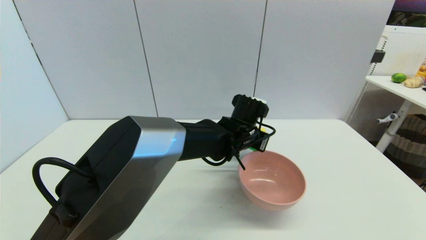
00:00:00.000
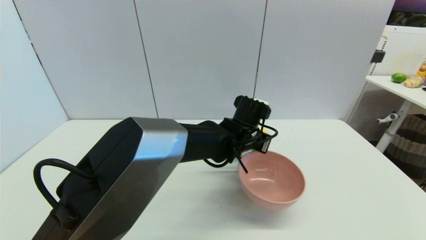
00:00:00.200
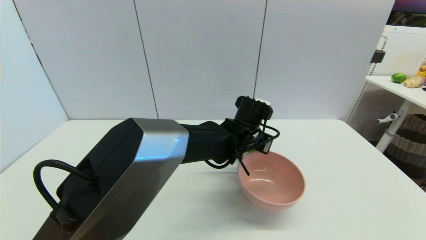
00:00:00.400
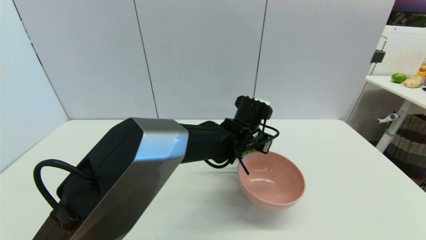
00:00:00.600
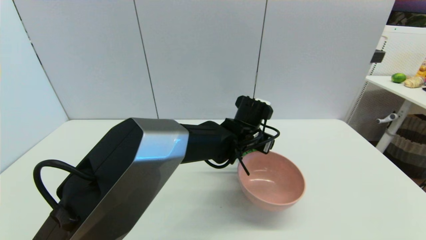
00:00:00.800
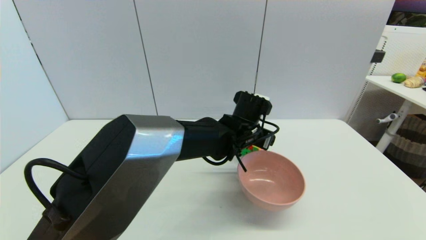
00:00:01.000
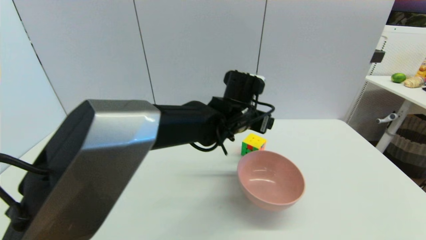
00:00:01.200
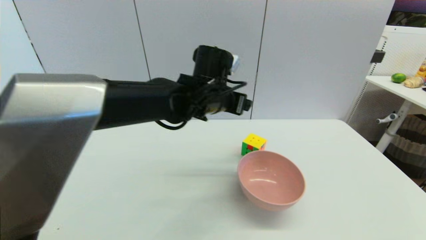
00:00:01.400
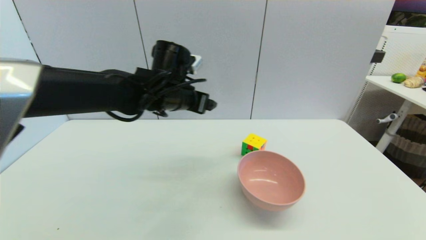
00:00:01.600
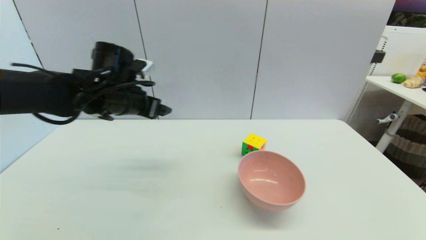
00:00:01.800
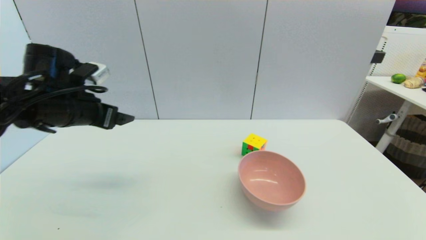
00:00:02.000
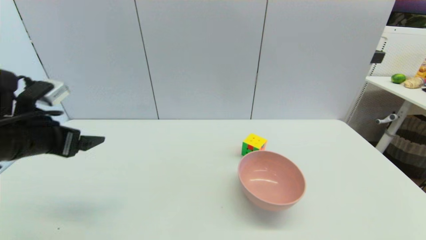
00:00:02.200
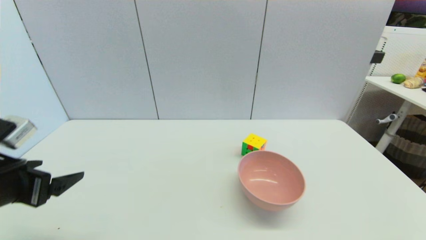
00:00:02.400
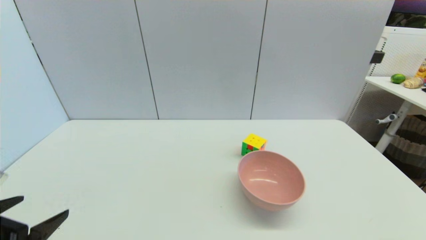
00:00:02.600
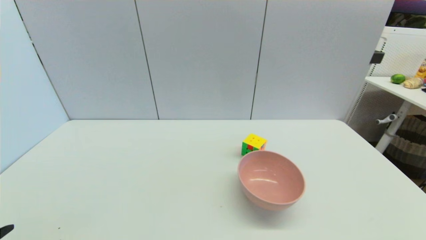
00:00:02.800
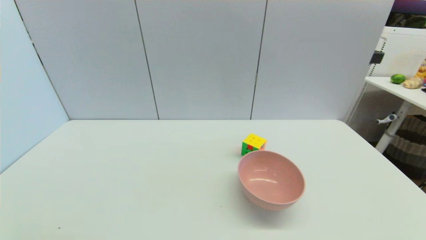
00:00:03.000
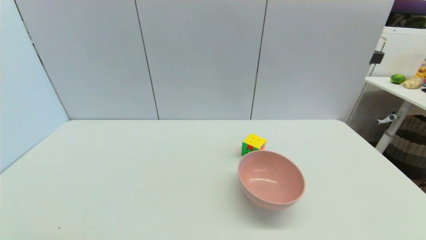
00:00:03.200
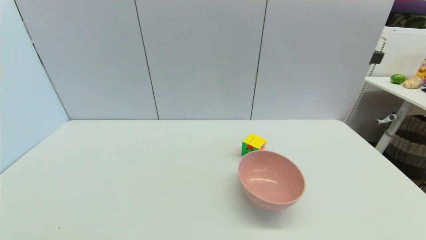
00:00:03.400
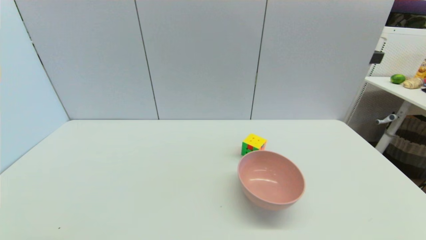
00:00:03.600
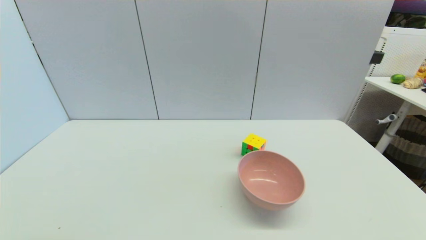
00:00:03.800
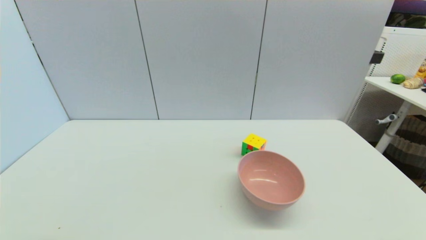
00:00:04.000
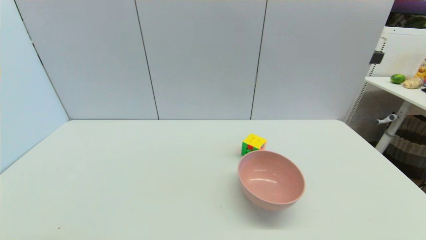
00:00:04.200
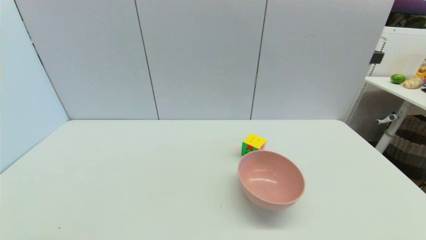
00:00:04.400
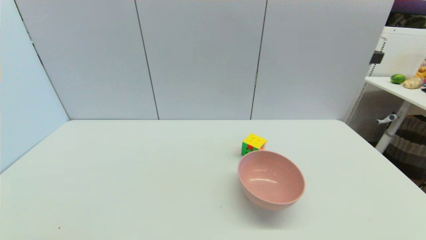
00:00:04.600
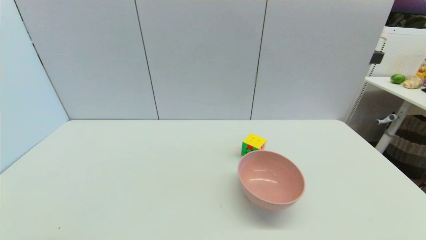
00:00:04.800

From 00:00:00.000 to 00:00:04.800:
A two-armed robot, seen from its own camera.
From 00:00:00.000 to 00:00:01.600: The left gripper moves to the left and upward, roughly 20 cm, and opens up.
From 00:00:01.600 to 00:00:03.200: The left gripper heads backward, to the left and downward, covering about 40 cm.
